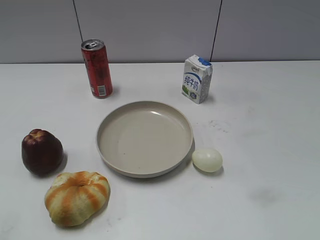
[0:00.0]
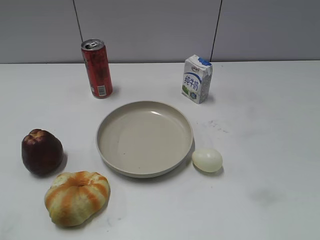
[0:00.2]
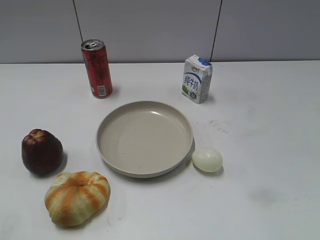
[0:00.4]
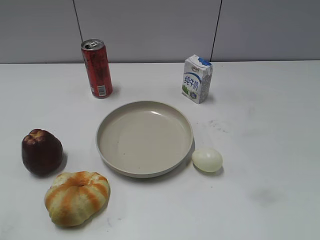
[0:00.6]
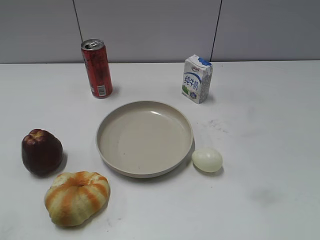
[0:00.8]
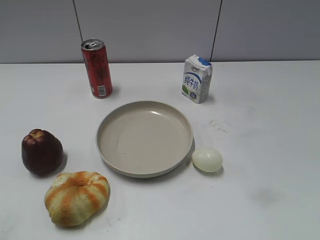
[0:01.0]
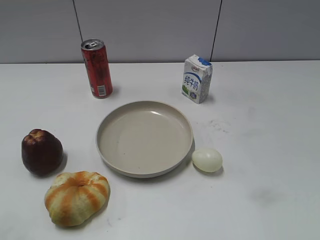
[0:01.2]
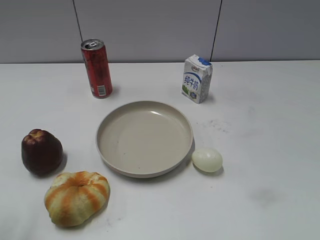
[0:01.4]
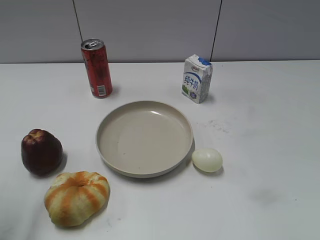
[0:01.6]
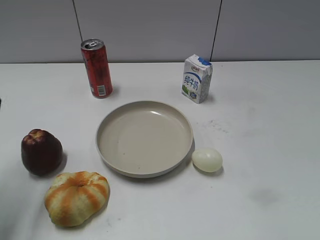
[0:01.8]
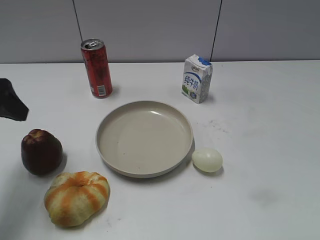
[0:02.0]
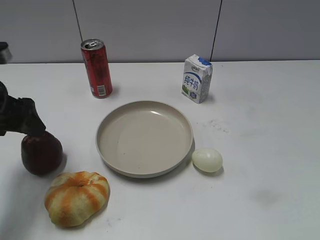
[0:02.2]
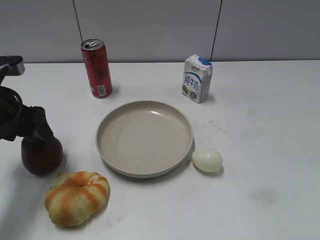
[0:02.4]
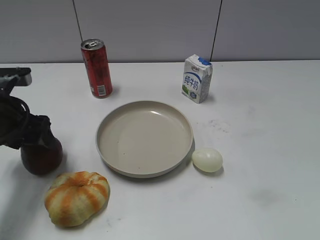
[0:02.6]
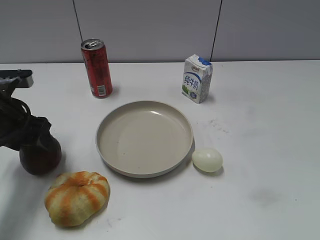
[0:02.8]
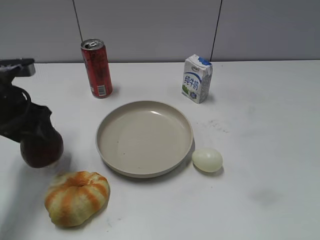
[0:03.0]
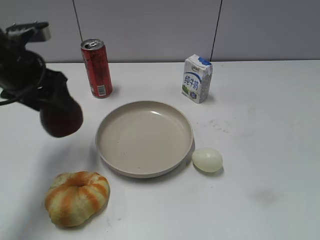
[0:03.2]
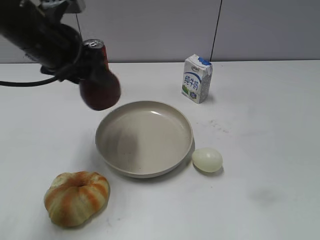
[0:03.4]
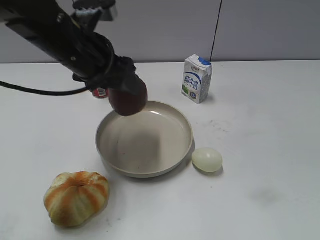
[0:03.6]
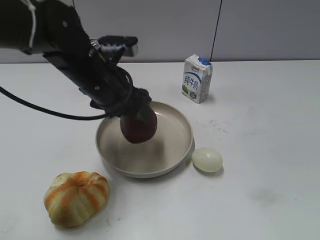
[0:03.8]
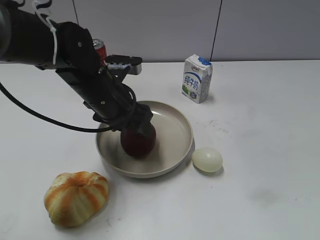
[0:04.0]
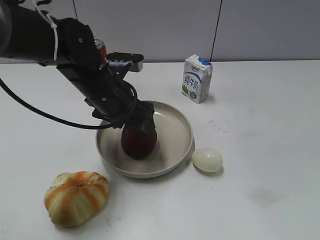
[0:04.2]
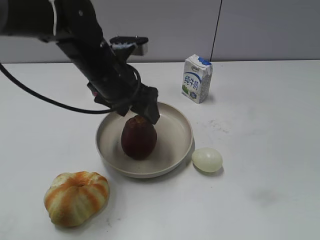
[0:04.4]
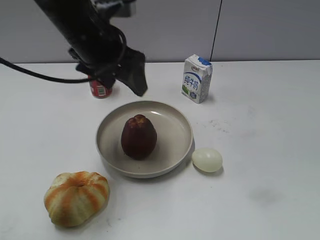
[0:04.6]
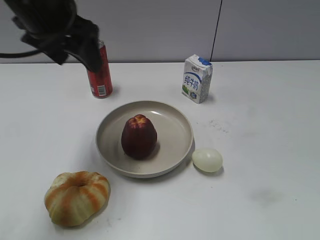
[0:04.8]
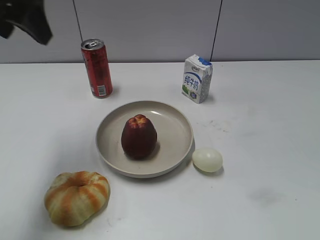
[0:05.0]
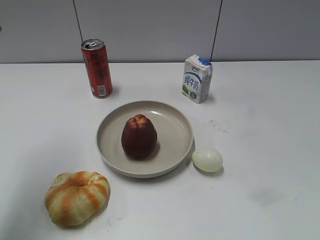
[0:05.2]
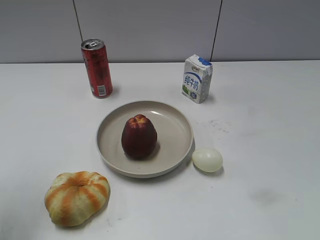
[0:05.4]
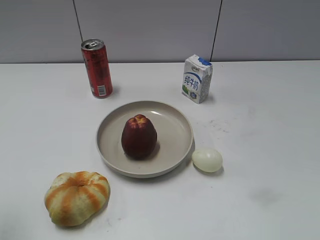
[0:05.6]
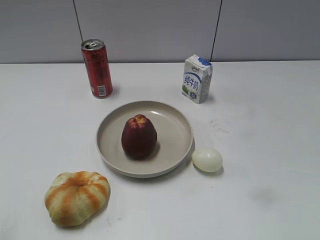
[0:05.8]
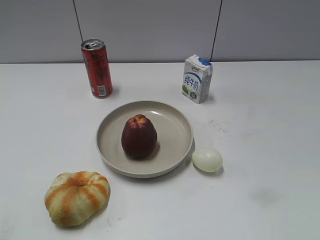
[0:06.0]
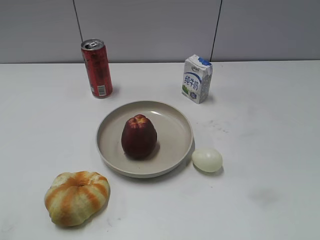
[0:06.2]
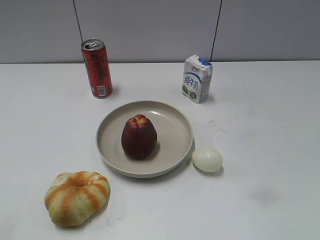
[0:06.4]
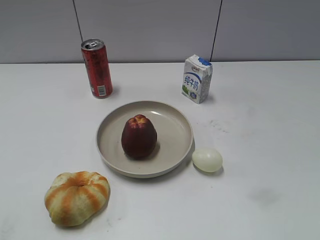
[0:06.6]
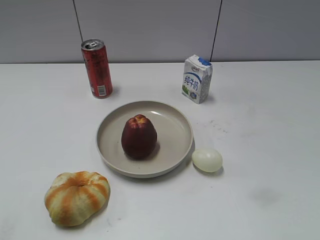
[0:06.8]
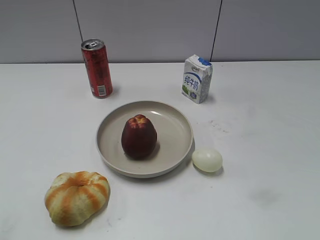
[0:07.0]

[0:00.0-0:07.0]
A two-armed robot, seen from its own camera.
Step, 0:00.8 to 0:02.6: Grasp the apple with left gripper.
Step, 0:03.0 to 0:04.4: Place the apple on the plate with left gripper.
0:01.4 to 0:02.8: The left gripper is displaced forward and downward by roughly 25 cm, and closes its fingers.
0:02.8 to 0:04.2: The left gripper is displaced to the right by some 15 cm, and opens.
0:04.2 to 0:05.6: The left gripper heads to the left, backward and upward, covering roughly 35 cm, and closes.
